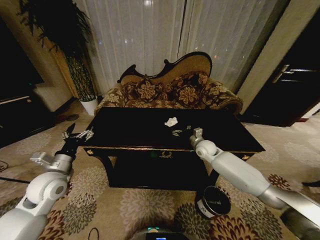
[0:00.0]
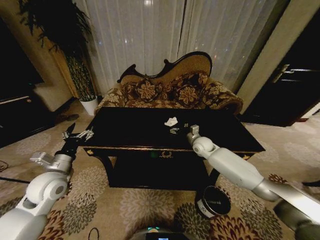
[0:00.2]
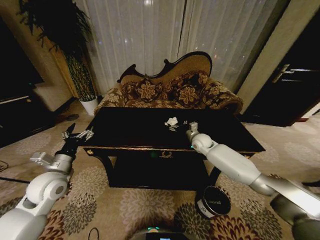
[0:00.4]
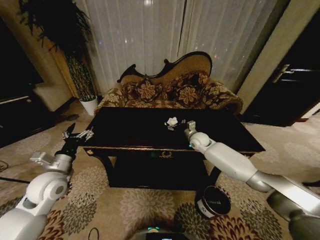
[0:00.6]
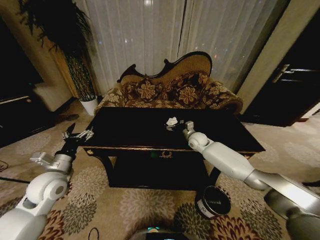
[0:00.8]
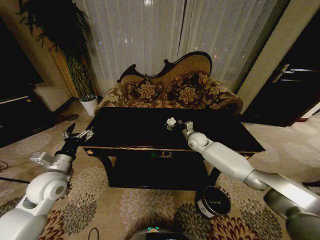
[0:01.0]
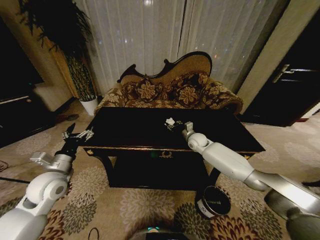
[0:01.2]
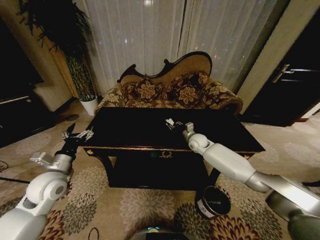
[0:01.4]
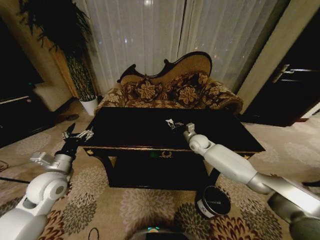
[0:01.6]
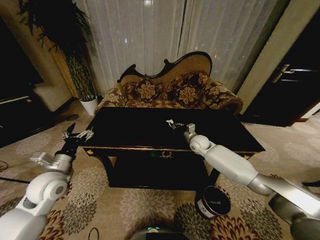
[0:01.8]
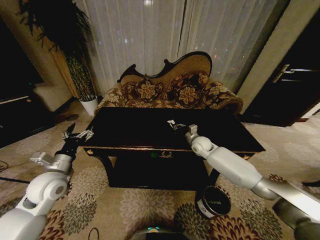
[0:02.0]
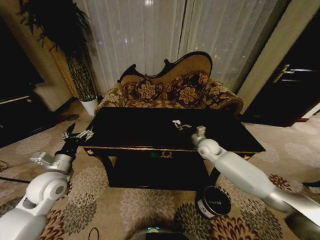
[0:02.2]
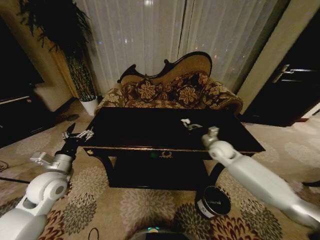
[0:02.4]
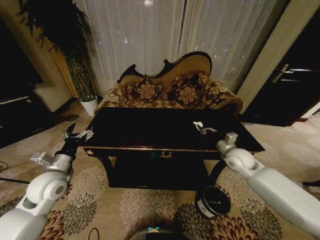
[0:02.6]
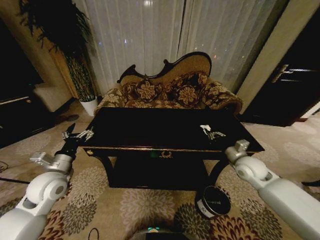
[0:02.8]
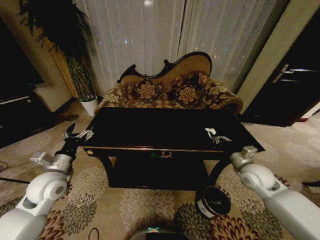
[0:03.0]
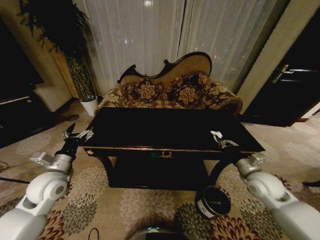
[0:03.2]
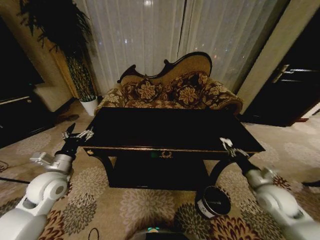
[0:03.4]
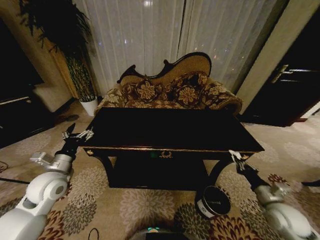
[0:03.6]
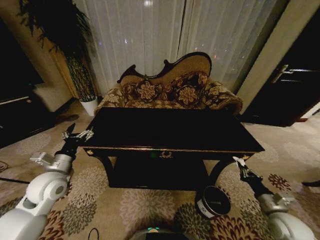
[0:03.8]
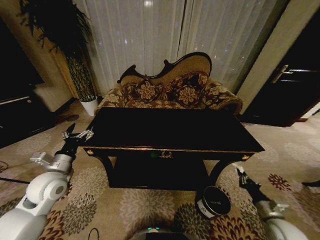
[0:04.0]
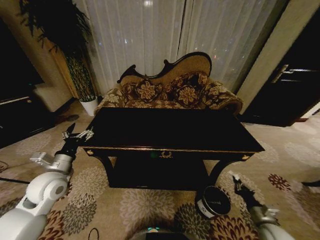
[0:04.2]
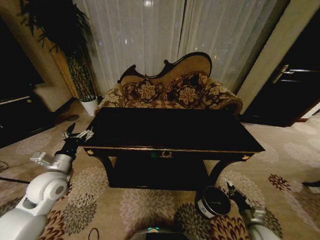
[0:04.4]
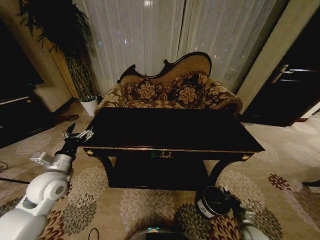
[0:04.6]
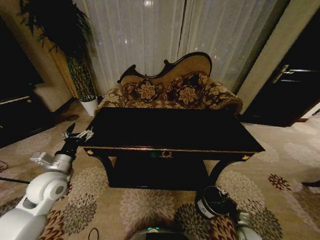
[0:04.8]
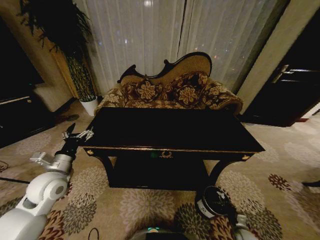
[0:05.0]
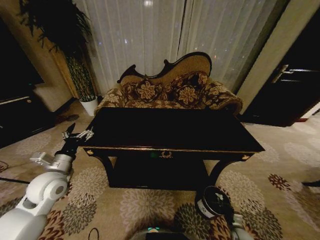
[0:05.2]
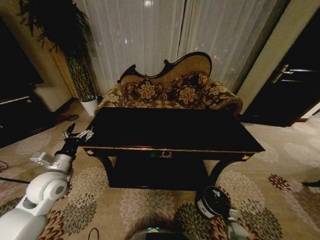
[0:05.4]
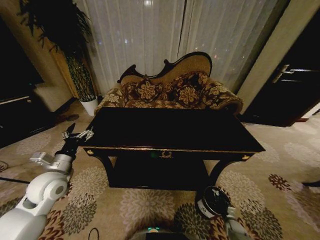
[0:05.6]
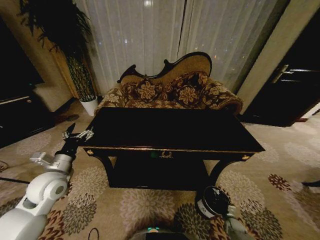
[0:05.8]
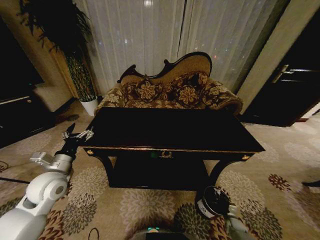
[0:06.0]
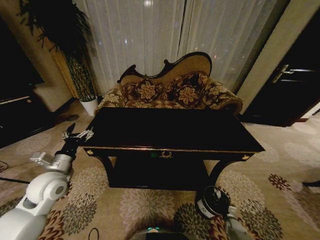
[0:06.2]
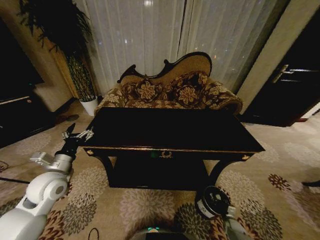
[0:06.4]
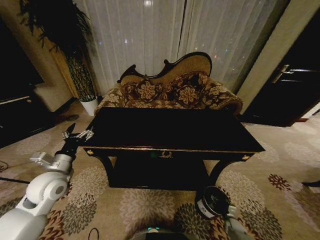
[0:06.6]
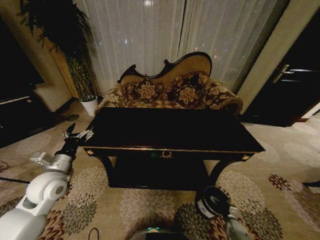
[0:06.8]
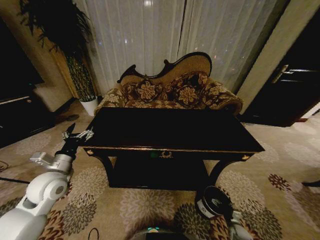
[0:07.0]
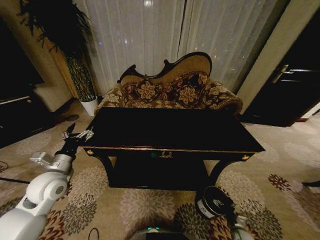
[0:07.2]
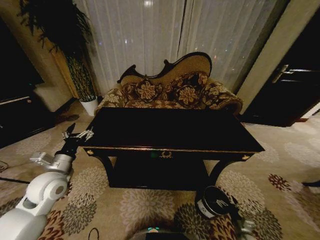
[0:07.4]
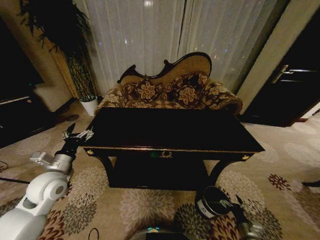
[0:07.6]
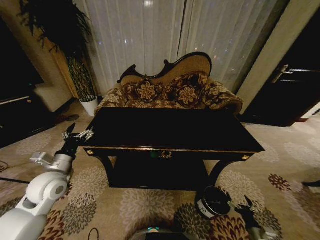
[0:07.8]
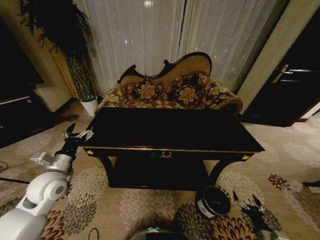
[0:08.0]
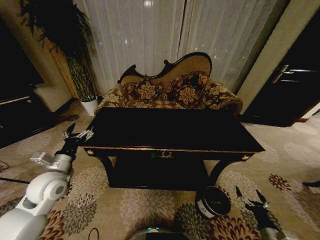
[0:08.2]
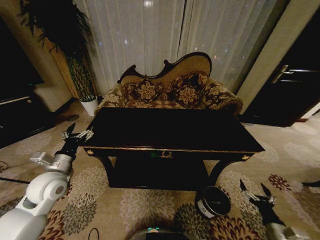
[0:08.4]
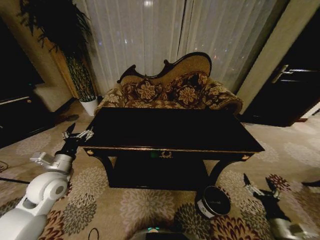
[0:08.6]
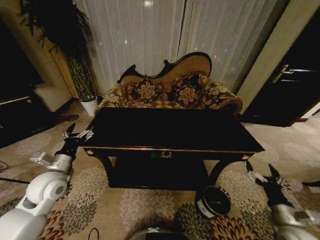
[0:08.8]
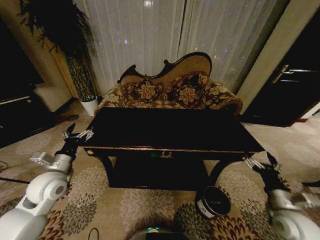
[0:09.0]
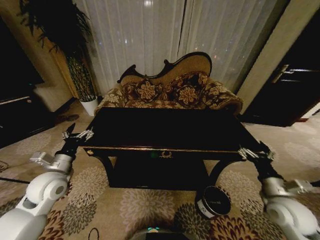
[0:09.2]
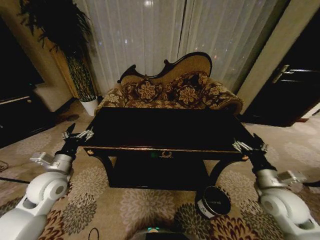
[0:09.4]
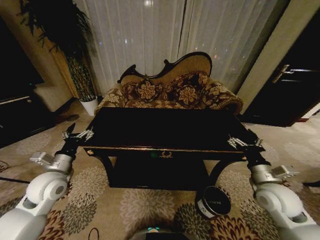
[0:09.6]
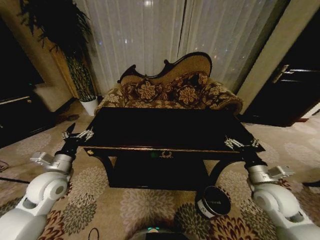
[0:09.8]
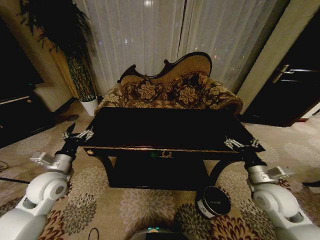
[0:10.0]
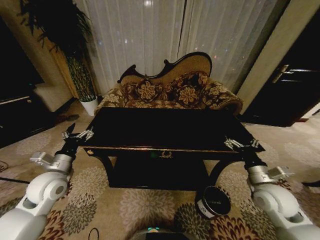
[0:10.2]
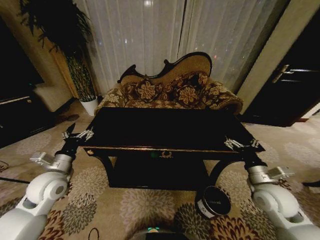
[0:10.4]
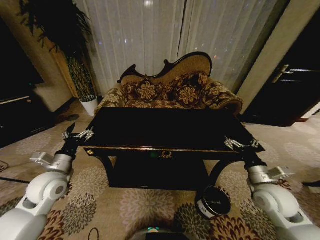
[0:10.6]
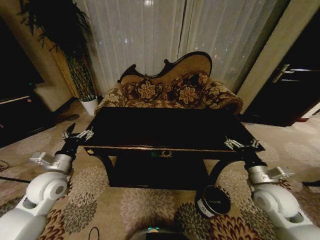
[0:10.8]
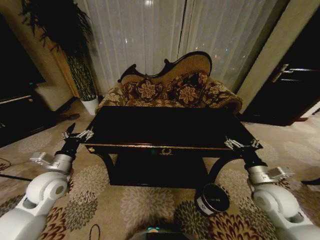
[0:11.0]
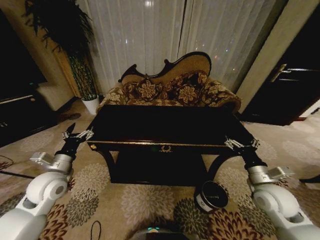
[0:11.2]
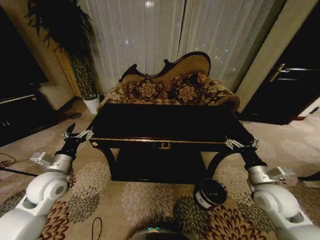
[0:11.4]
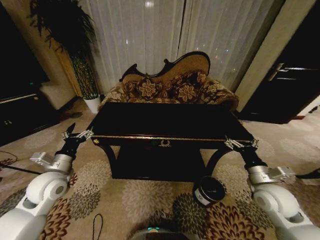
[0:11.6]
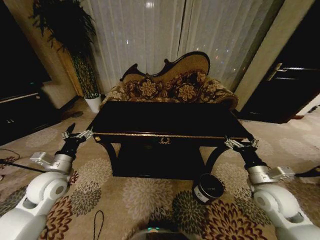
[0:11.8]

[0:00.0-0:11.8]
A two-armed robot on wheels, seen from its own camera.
Task of the whole recording: Move to the front of the table and place the trash on the table into the trash bin.
0:00.0 to 0:01.4: The right gripper closes its fingers.
0:01.4 to 0:03.0: The right gripper goes approximately 25 cm backward and to the right, and closes its fingers.
0:03.0 to 0:04.4: The right gripper moves downward and backward, roughly 30 cm.
0:04.4 to 0:06.0: The right gripper travels downward by approximately 15 cm.
0:06.0 to 0:07.4: The right gripper heads backward and upward, covering about 10 cm, and opens.
0:07.4 to 0:08.8: The right gripper heads upward, covering about 25 cm.
0:08.8 to 0:10.4: The right gripper moves forward, upward and to the left, about 15 cm.

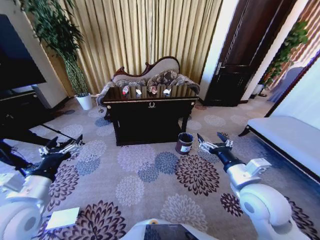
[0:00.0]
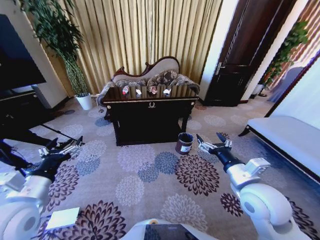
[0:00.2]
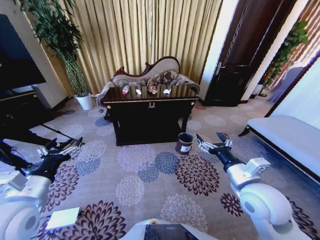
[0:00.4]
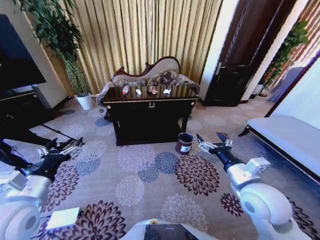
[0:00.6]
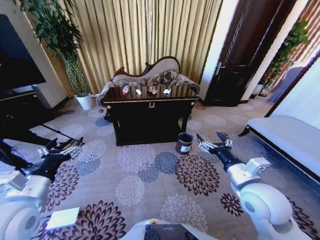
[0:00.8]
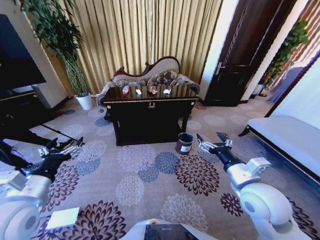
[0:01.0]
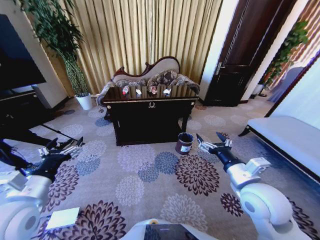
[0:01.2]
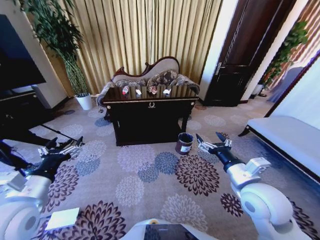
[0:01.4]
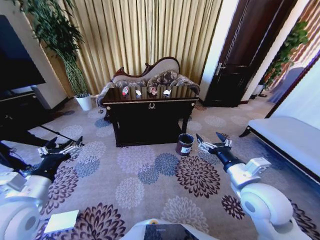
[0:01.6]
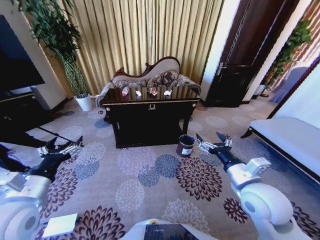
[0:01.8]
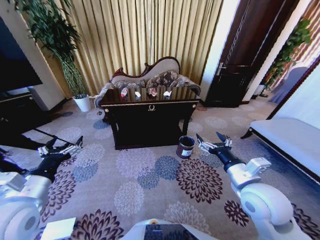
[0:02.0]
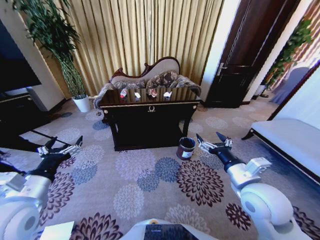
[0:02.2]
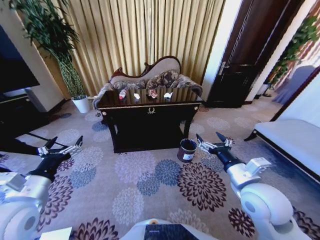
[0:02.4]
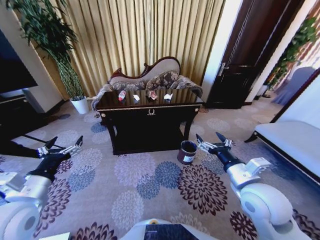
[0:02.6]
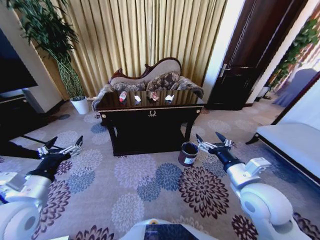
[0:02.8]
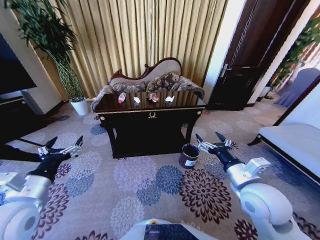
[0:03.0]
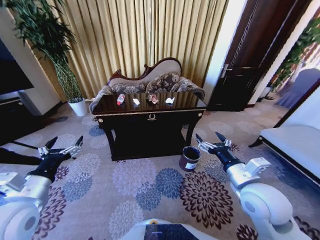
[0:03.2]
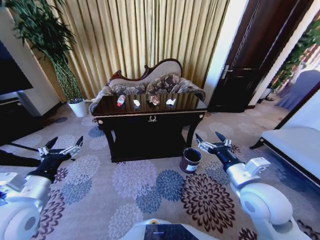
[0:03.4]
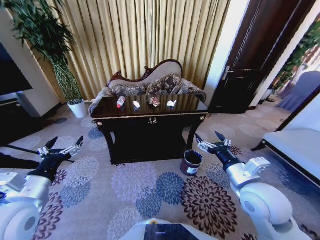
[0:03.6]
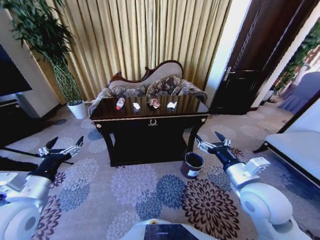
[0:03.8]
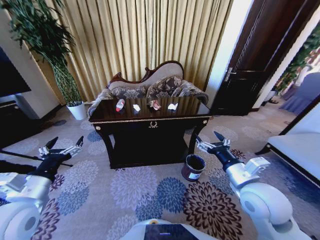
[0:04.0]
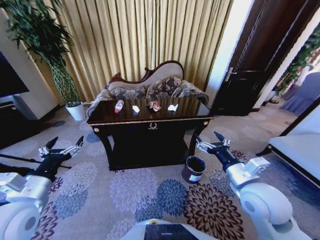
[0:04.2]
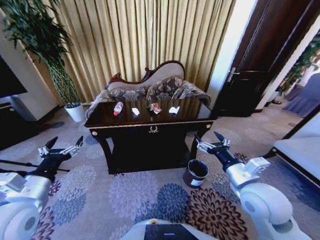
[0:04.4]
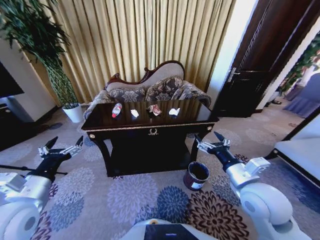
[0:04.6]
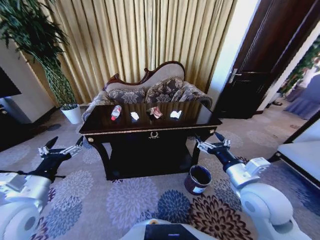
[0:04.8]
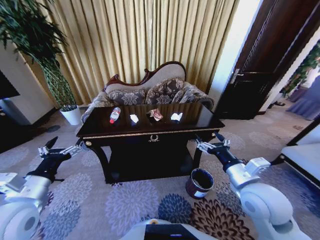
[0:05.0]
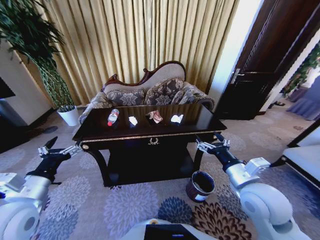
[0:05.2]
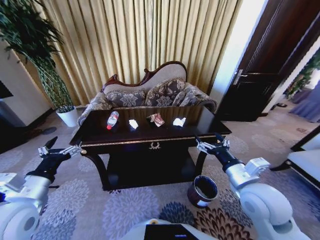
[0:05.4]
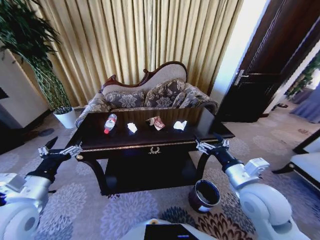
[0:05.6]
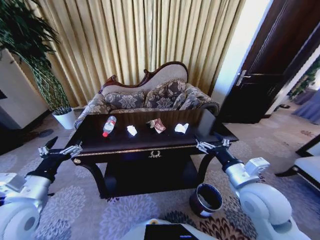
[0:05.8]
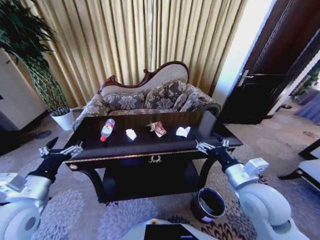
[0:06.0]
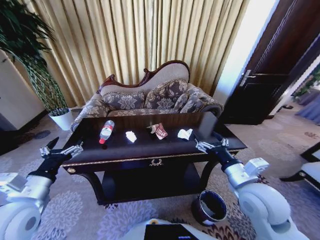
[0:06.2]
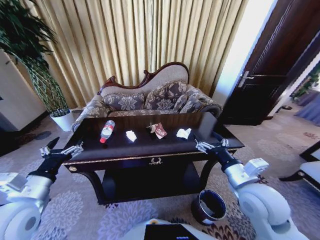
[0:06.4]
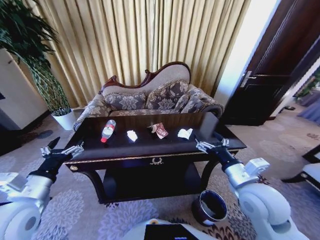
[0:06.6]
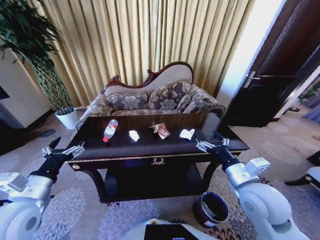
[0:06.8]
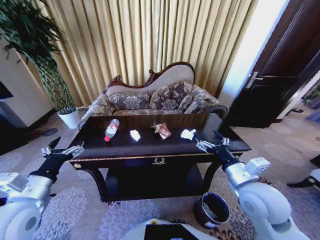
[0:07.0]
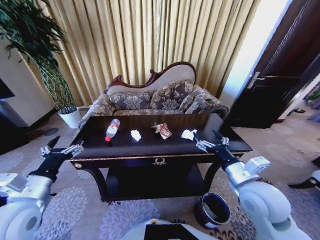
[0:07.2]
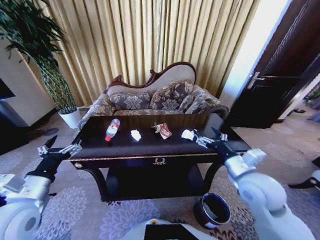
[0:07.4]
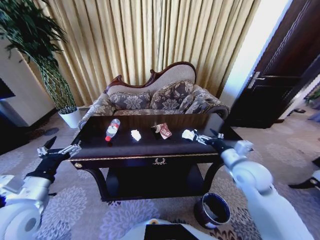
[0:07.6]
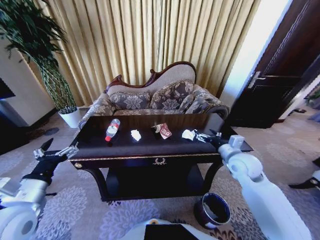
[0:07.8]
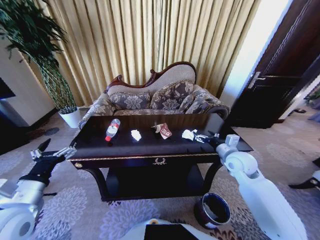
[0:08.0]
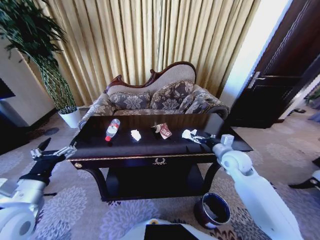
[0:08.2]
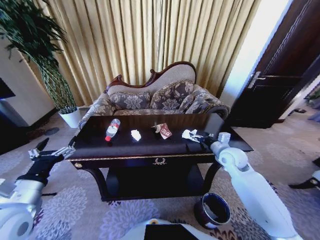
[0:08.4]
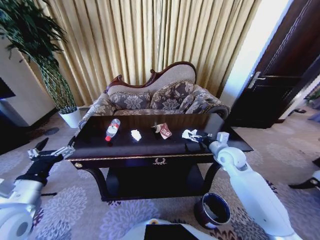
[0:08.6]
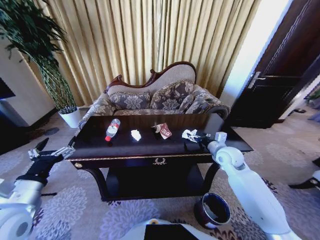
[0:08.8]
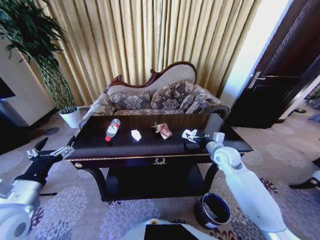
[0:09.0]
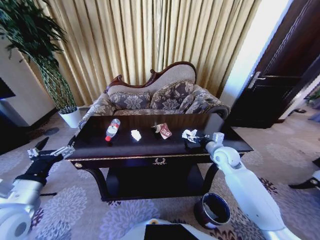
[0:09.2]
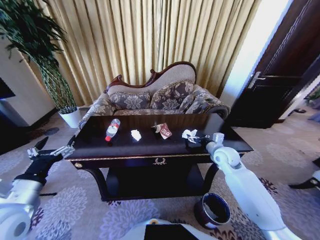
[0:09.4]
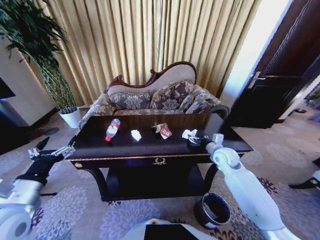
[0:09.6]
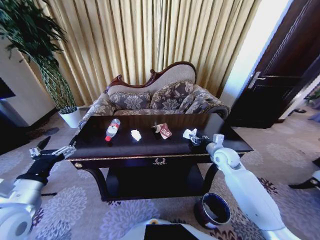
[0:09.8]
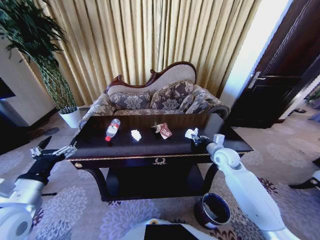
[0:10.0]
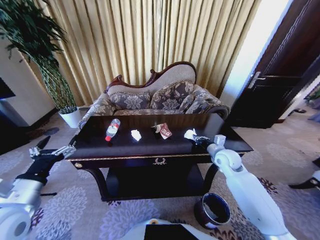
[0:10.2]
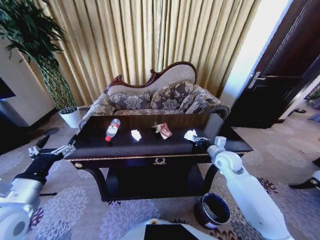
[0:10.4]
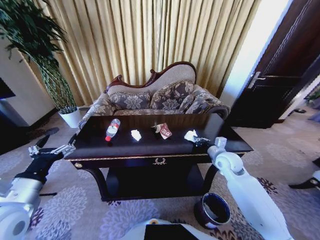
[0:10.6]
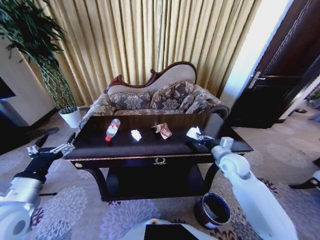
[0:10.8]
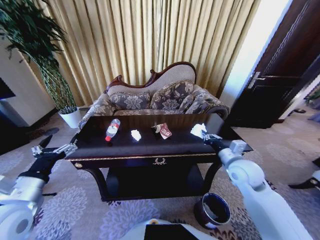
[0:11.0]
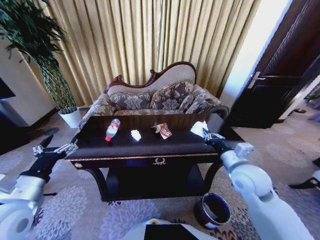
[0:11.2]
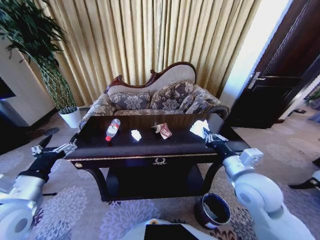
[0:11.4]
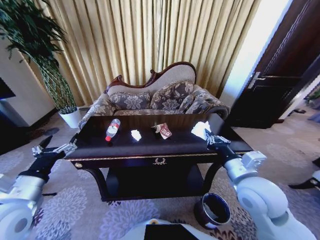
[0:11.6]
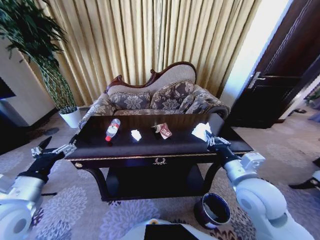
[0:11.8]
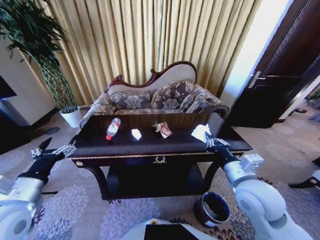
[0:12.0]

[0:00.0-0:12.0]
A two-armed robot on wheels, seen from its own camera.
Task of the whole recording: Move to the front of the table and place the trash on the table into the trash bin.
0:06.0 to 0:07.6: The right gripper travels forward by approximately 10 cm.
0:07.6 to 0:09.0: The right gripper moves forward and downward, roughly 10 cm.
0:09.0 to 0:10.4: The right gripper closes.
0:10.4 to 0:12.0: The right gripper travels backward and upward by about 20 cm.
